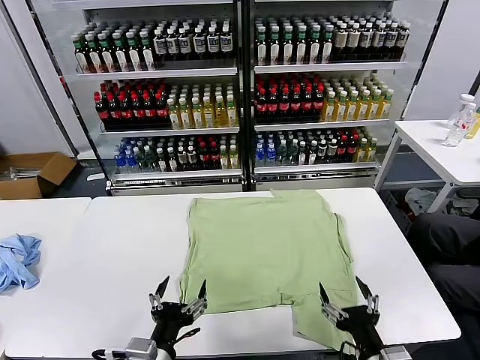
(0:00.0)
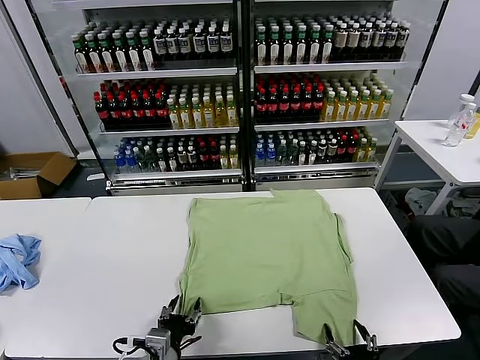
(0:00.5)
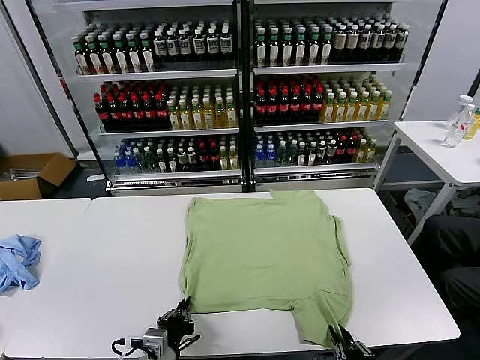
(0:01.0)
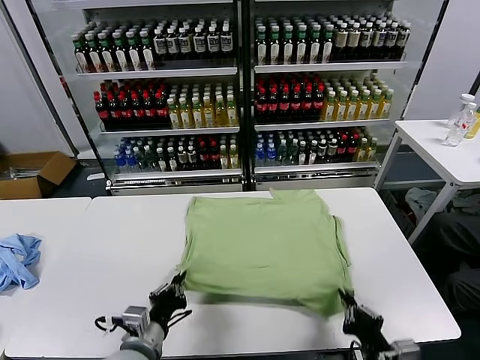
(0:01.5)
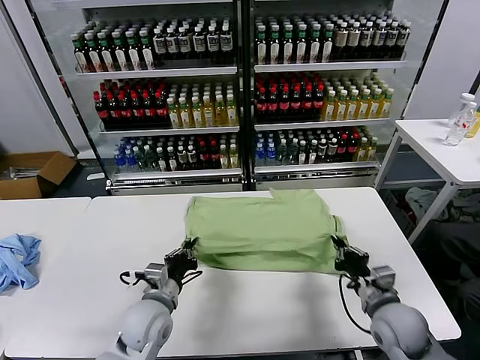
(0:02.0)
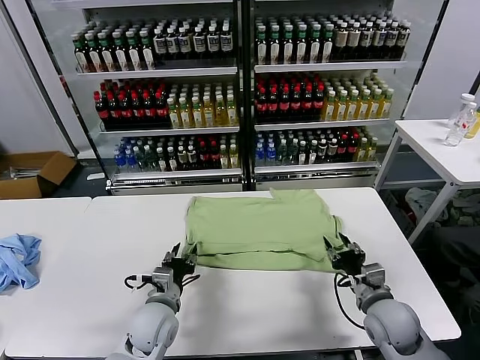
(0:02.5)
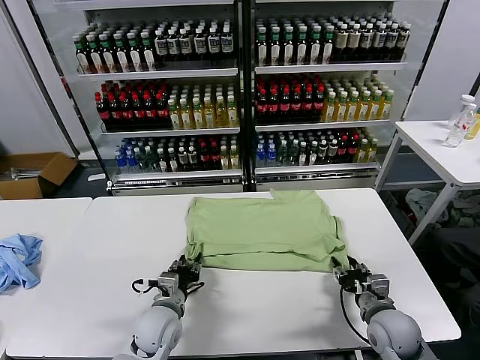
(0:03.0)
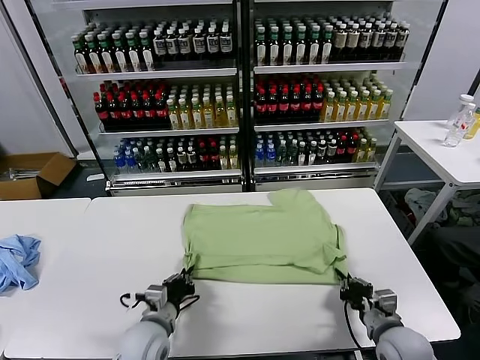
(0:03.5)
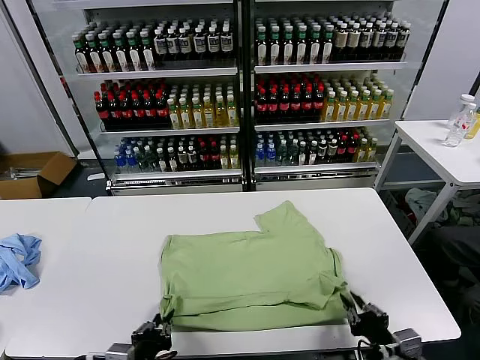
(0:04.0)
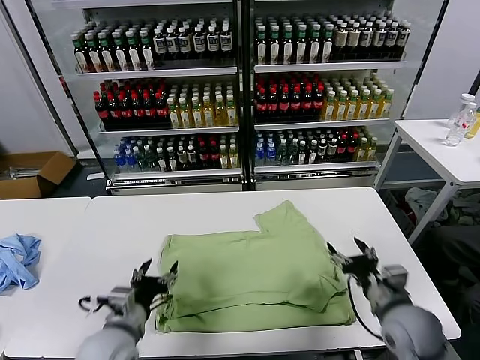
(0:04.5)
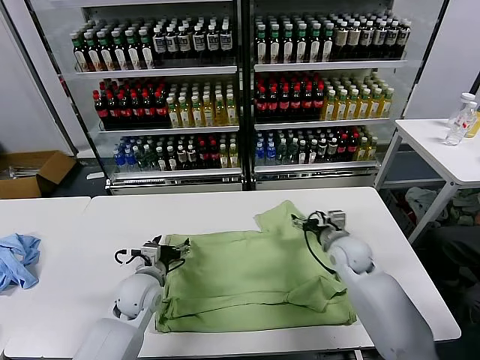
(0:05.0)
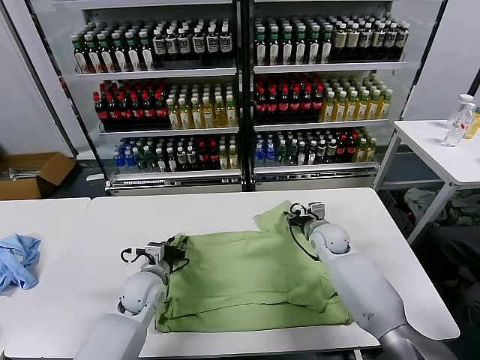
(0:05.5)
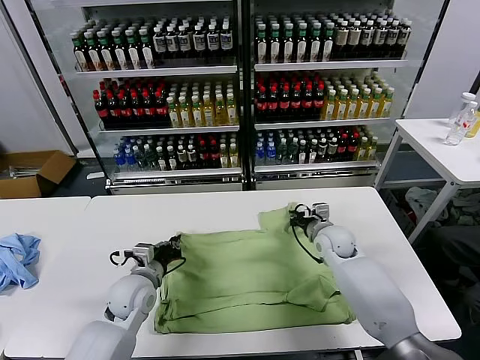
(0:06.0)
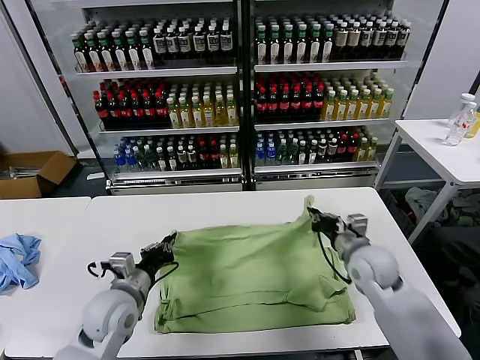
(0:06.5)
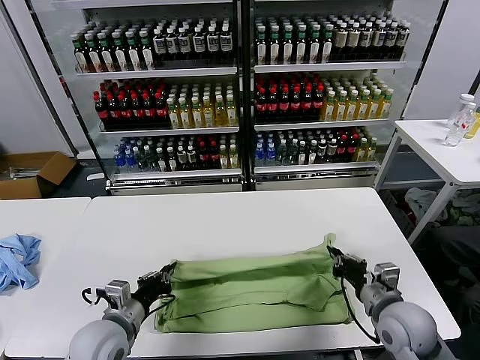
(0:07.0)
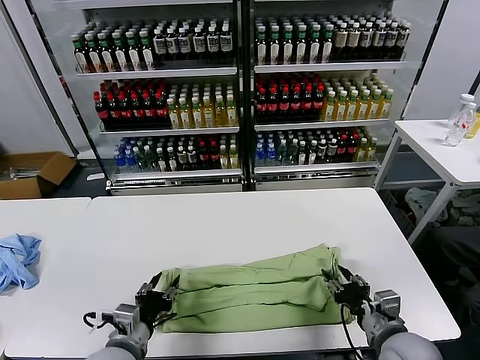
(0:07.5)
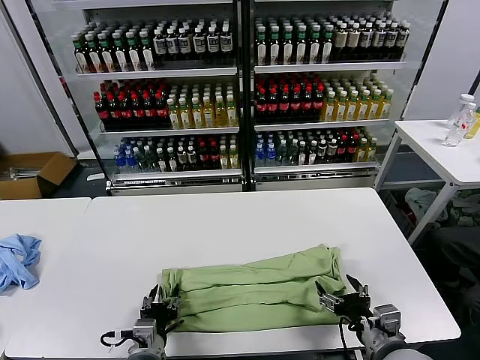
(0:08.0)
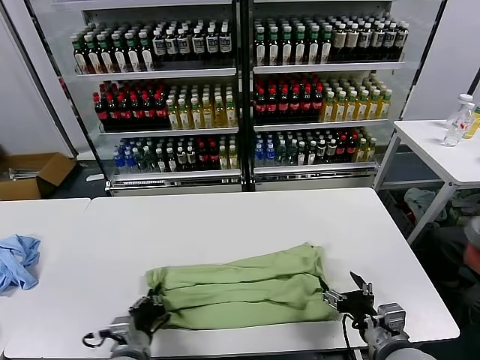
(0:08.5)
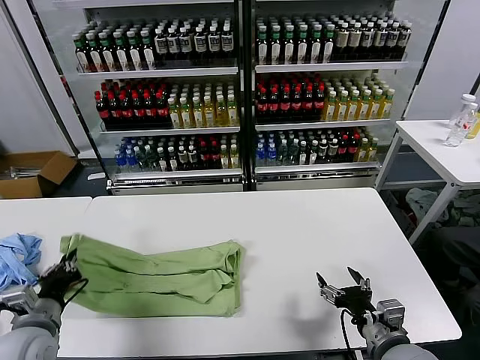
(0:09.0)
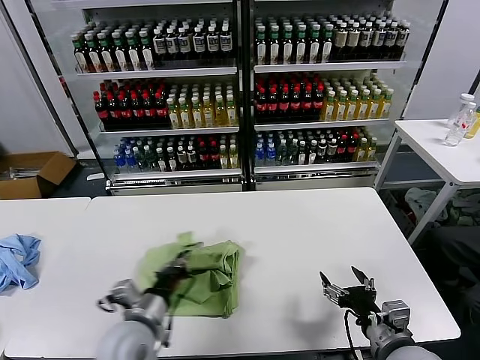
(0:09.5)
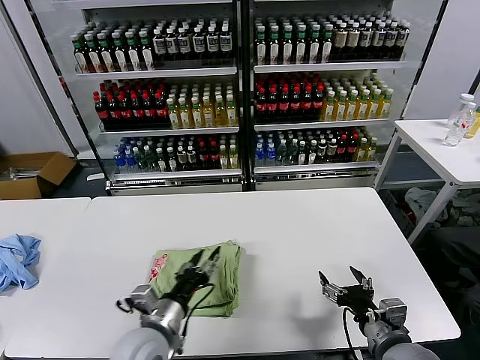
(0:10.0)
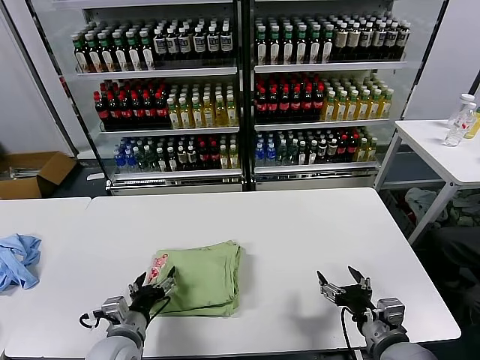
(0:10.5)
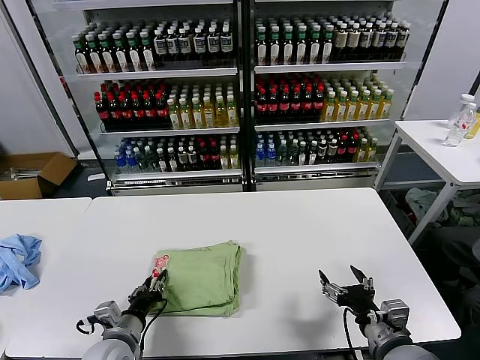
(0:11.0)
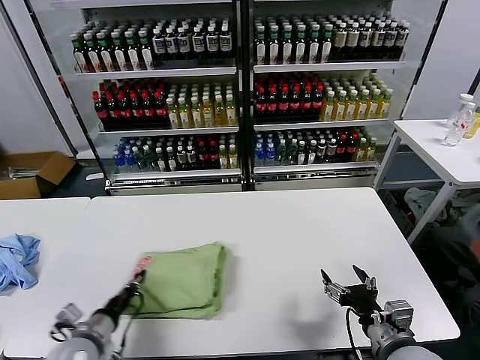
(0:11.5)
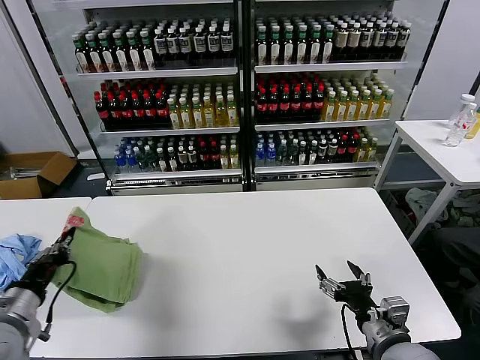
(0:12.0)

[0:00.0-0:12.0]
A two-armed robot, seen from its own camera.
Task of the whole recording: fold and organize the clothes.
Step, 0:00.0 to 0:01.0: use both grippers simultaneously to clamp the lower edge of the clothing fabric.
Step, 0:01.5 to 0:02.0: use both grippers to drag the lower edge of the fabric forward and fold it over the upper edge.
Step, 0:02.5 to 0:04.0: Drag the clothes downward with both gripper.
Step, 0:04.5 to 0:05.5: use both grippers simultaneously to clamp the upper edge of the clothing fabric.
Step, 0:06.0 to 0:07.5: use both grippers to drag the upper edge of the fabric backward and fold it over the lower edge.
Step, 0:08.0 to 0:08.5: use the left gripper to clamp the left edge of the fabric.
Step, 0:09.0 to 0:09.5: use the left gripper to drag the left edge of the fabric to the left and folds it over the right edge.
0:02.0 to 0:04.0: The two grippers go some 15 cm backward. The left gripper opens, then closes again.
0:04.0 to 0:06.0: The grippers both shift forward by roughly 25 cm. The left gripper opens, then closes once more. The right gripper closes its fingers.
0:06.0 to 0:08.0: The right gripper travels backward by roughly 30 cm, and opens its fingers; the left gripper shifts roughly 15 cm backward, and opens its fingers.
0:08.0 to 0:10.0: The left gripper goes about 5 cm upward, moves roughly 20 cm to the left and comes back, and closes, then reopens.
0:10.0 to 0:12.0: The left gripper shifts roughly 20 cm to the left, and closes up.

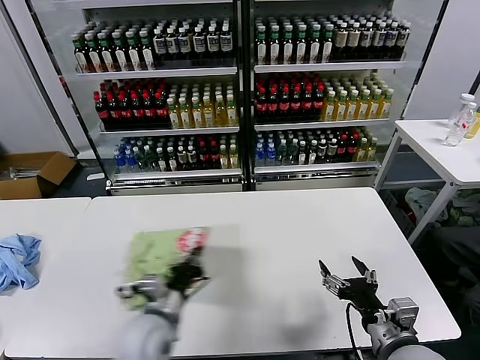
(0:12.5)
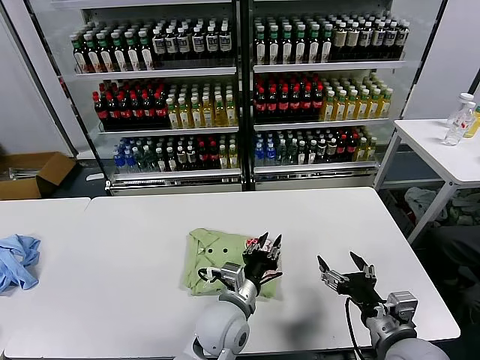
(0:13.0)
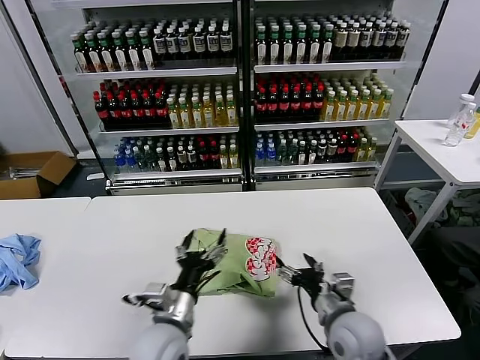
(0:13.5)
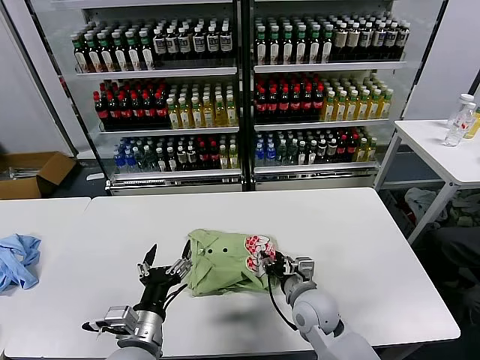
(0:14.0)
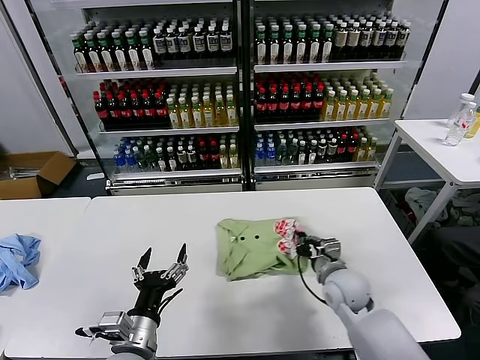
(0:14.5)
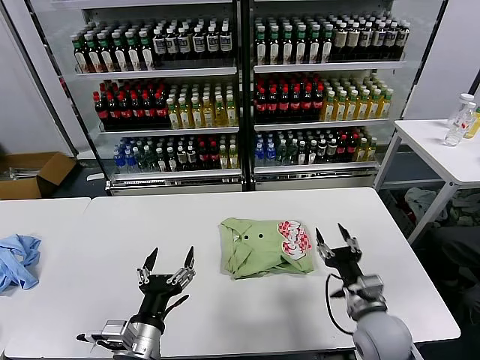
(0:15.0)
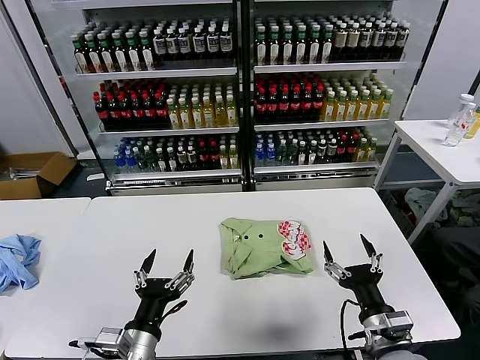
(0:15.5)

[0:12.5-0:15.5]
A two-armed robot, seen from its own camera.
Task of the whole recording: fold and organize the clothes.
Step, 0:13.5 to 0:14.5: Drag the clothes to the center of the table.
0:12.5 to 0:14.0: The left gripper moves backward, about 5 cm, moves approximately 15 cm to the right and comes back, and opens up, while the right gripper goes about 20 cm forward, to the left and downward, and closes up.
0:14.0 to 0:15.5: The right gripper travels backward, to the right and upward by roughly 20 cm, and opens up.

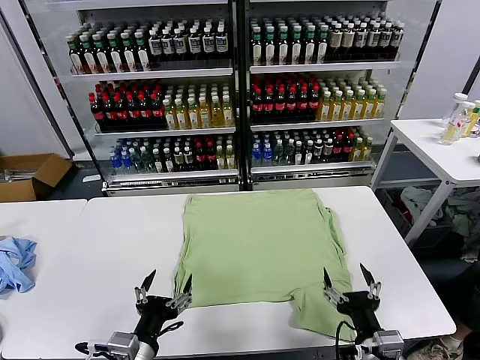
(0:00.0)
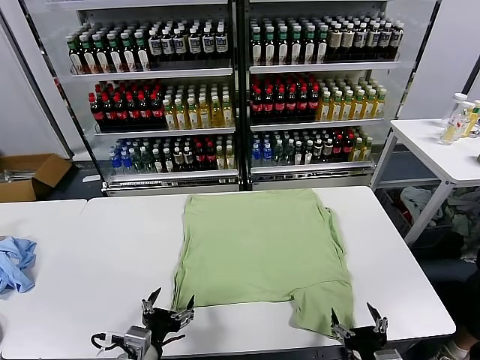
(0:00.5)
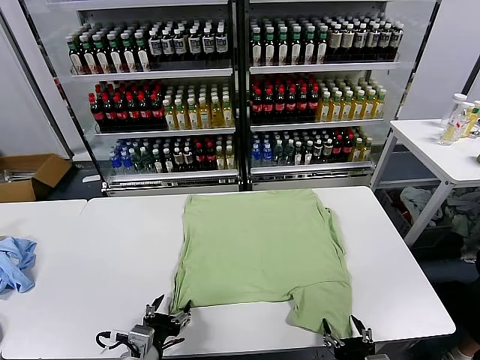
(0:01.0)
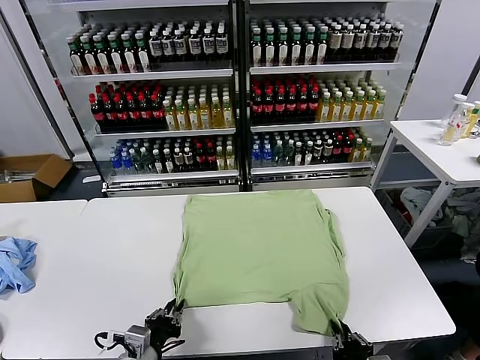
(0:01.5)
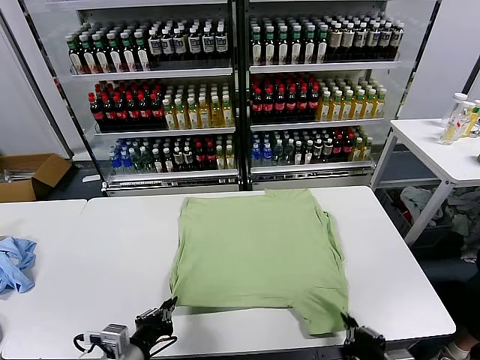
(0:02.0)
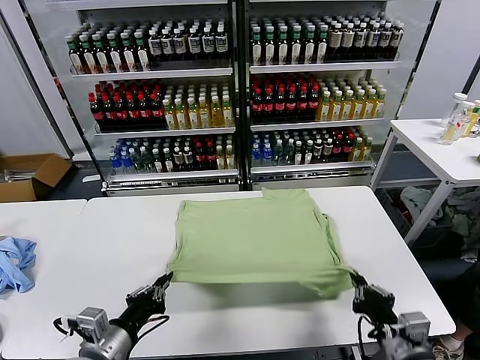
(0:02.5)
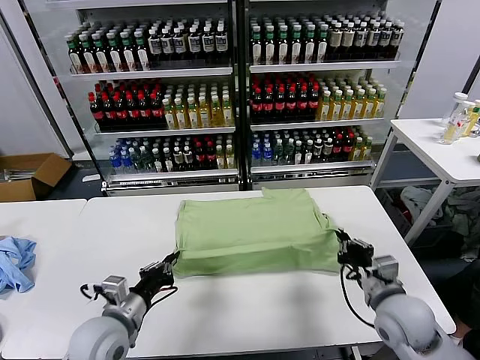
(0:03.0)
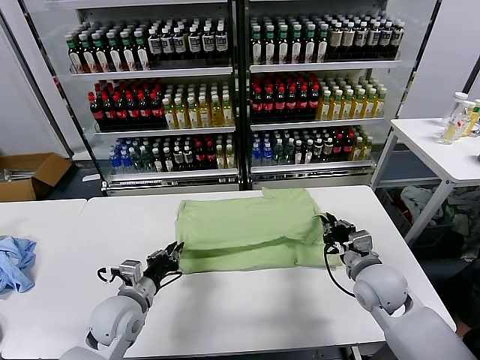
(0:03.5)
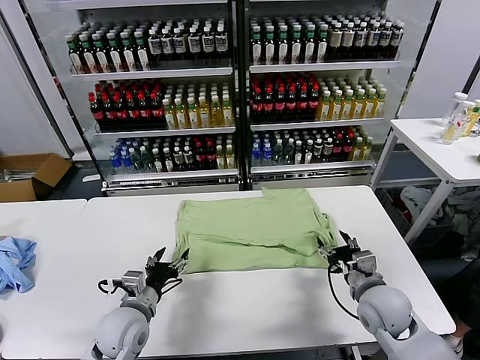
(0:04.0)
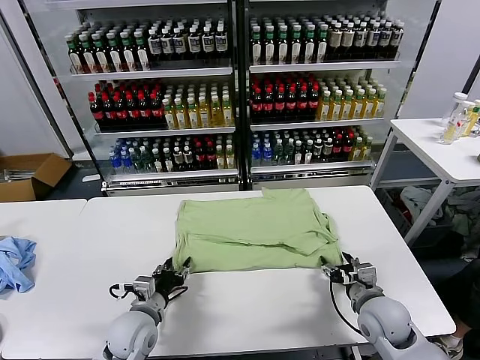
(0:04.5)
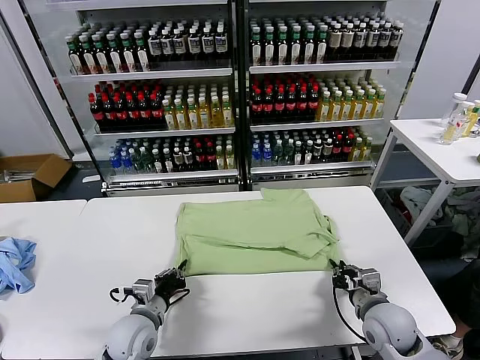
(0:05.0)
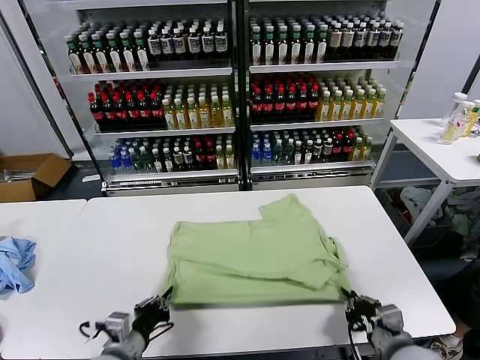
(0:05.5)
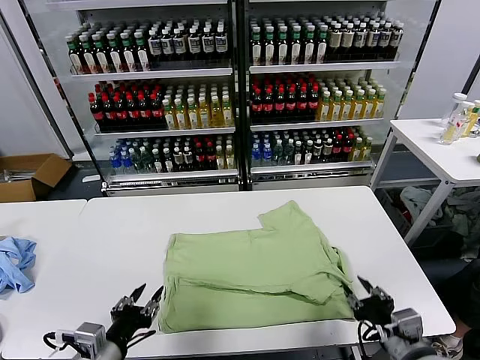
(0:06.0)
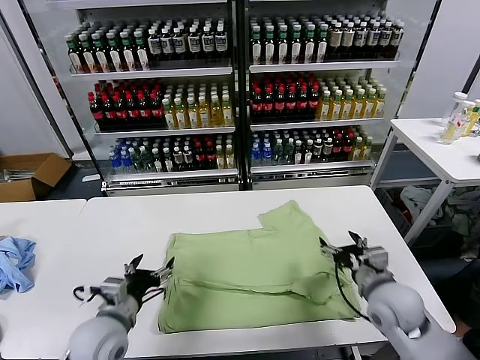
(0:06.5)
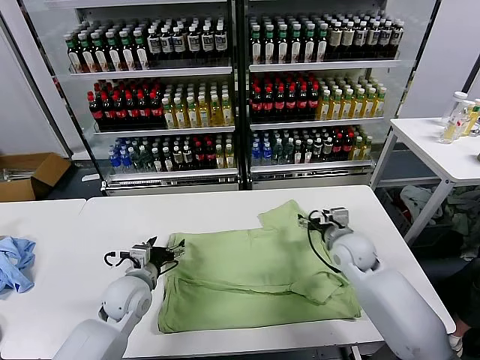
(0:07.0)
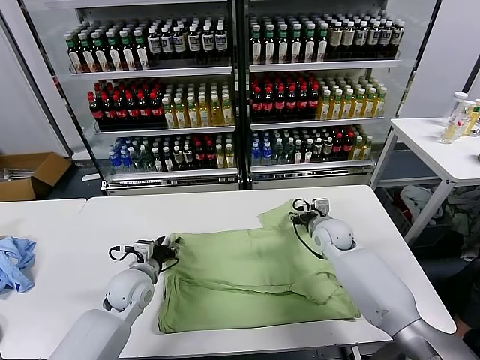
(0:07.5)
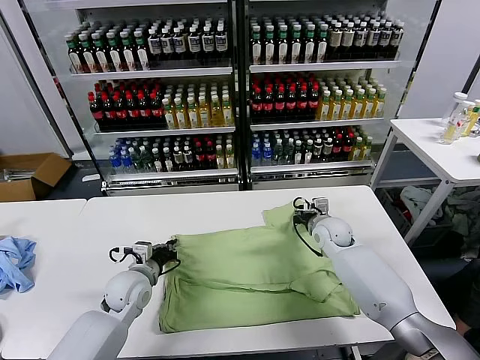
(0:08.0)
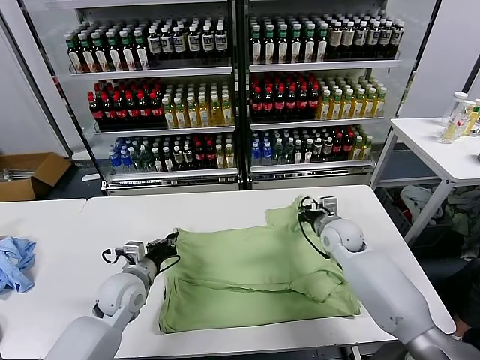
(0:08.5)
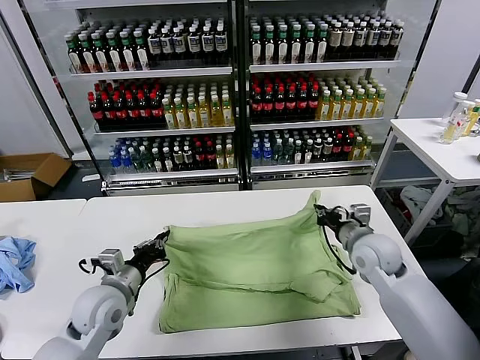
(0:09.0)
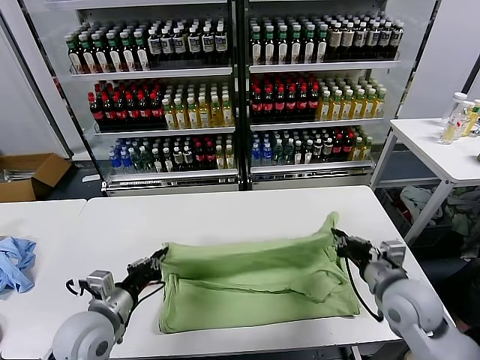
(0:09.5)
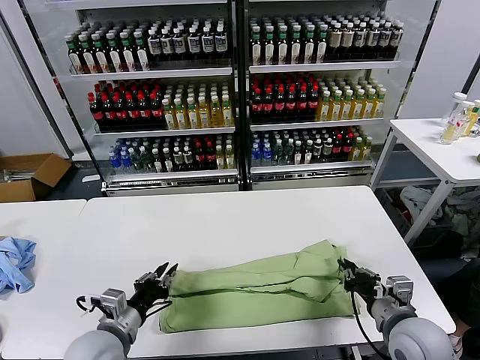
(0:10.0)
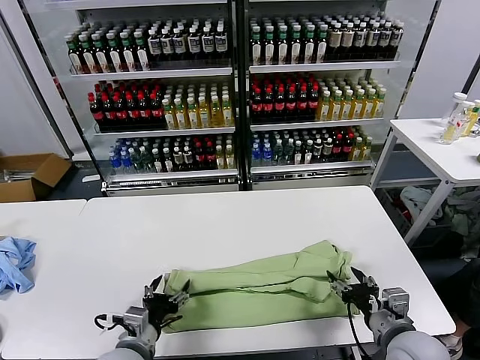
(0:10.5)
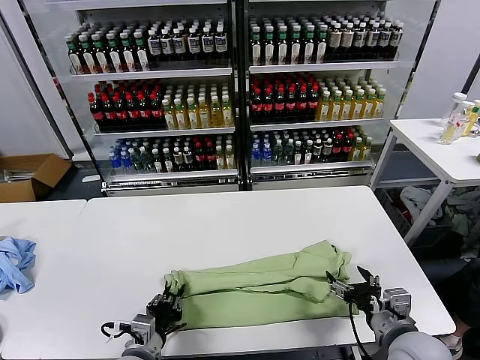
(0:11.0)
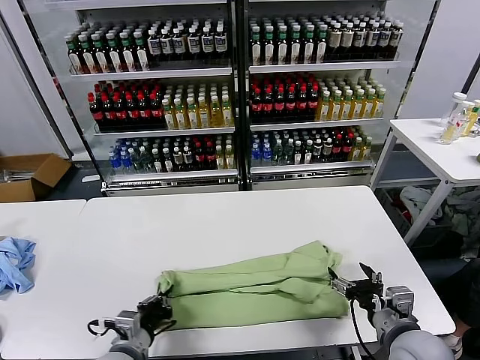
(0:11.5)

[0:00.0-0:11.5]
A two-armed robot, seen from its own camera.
Task of the whole recording: fold and organize the clothes.
Step, 0:00.0 to 0:01.5: use both grippers simultaneously to clamp the lower edge of the clothing fabric.
Step, 0:02.0 to 0:03.5: use both grippers to drag the lower edge of the fabric forward and fold it over the upper edge.
Step, 0:04.0 to 0:05.5: Drag the clothes downward with both gripper.
Step, 0:06.0 to 0:08.0: use both grippers simultaneously to clamp the upper edge of the clothing fabric.
Step, 0:08.5 to 0:10.0: use both grippers to drag the upper edge of the fabric backward and fold it over the lower edge.
Step, 0:10.5 to 0:11.0: use the left gripper to clamp the left edge of the fabric.
0:02.0 to 0:04.0: Both grippers move forward, about 15 cm. The left gripper opens its fingers, while the right gripper opens its fingers.
0:04.0 to 0:06.0: The two grippers go about 15 cm backward and upward. The right gripper closes, then opens again, while the left gripper closes, then reopens.
0:06.0 to 0:07.5: Both grippers travel together forward, roughly 30 cm. The right gripper opens and closes again. The left gripper opens, then closes once more.
0:07.5 to 0:09.5: The right gripper travels backward by roughly 25 cm, and closes up, while the left gripper goes roughly 15 cm backward and upward, and closes up.
0:09.5 to 0:11.5: The left gripper heads downward and backward, covering approximately 10 cm, and opens, then closes once more. The right gripper travels backward by some 5 cm, and opens up.
